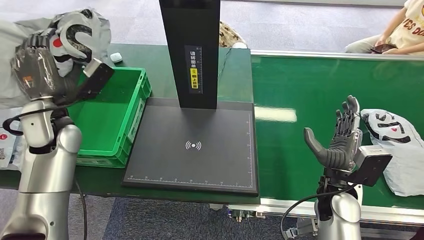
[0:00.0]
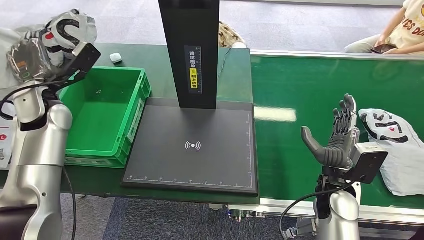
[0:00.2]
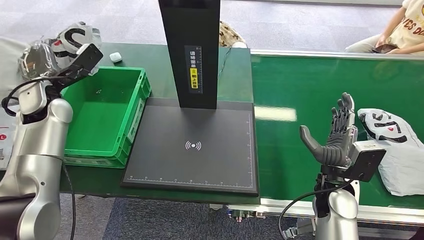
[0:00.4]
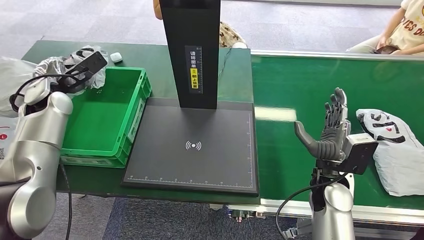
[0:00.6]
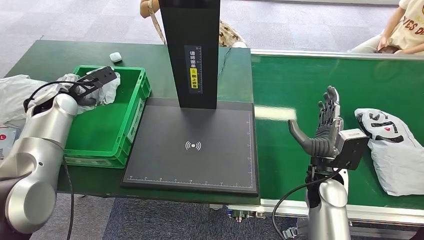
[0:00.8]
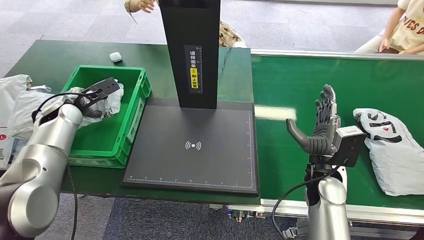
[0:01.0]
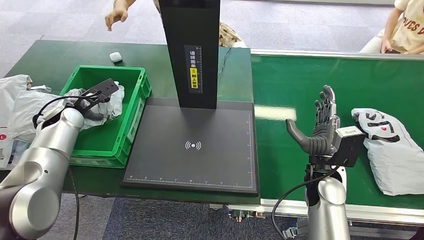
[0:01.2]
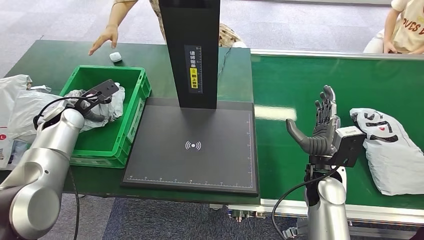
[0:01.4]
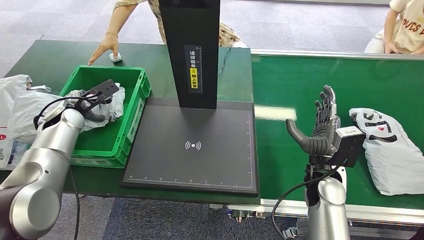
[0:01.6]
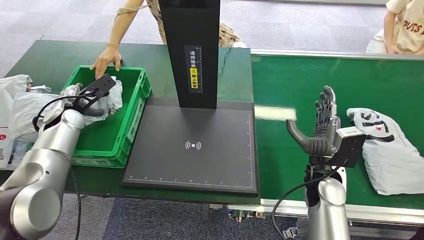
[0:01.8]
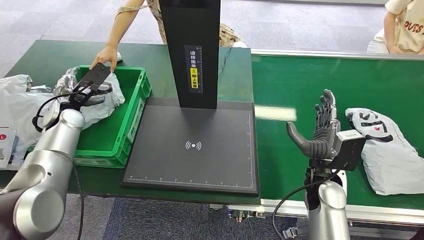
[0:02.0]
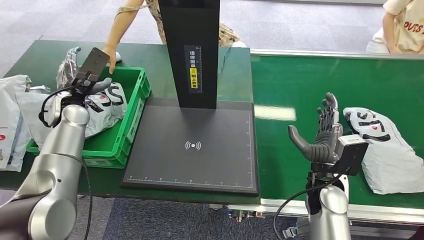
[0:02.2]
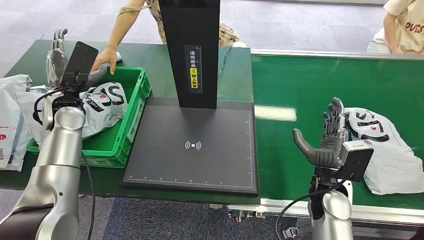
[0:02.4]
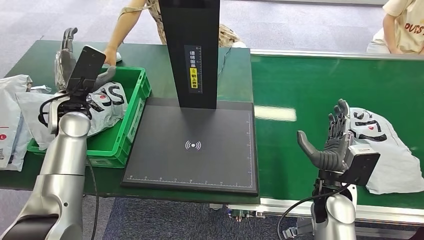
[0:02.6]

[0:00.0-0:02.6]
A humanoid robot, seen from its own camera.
Step, 0:00.0 to 0:02.6: Place the package into the parcel locker.
